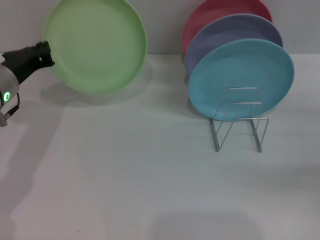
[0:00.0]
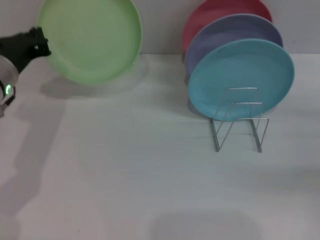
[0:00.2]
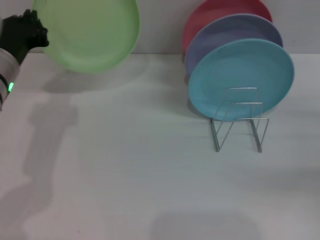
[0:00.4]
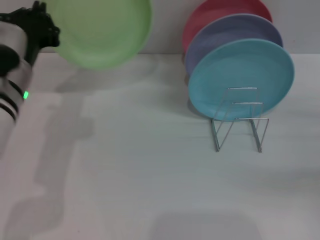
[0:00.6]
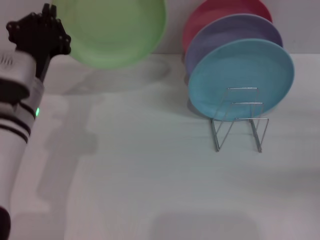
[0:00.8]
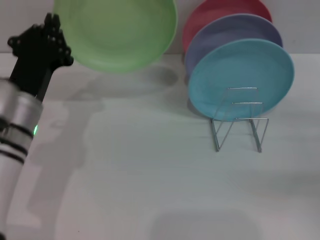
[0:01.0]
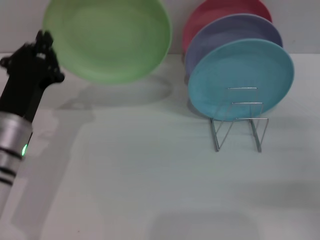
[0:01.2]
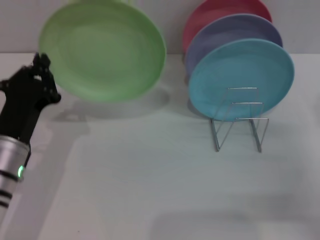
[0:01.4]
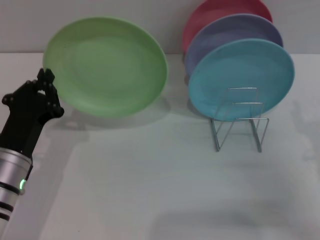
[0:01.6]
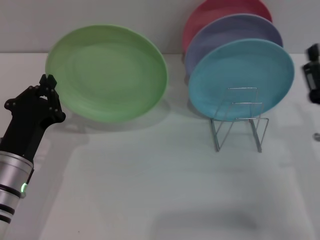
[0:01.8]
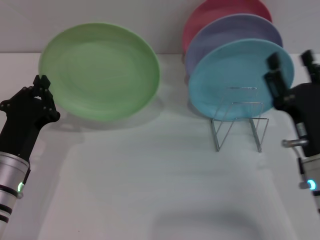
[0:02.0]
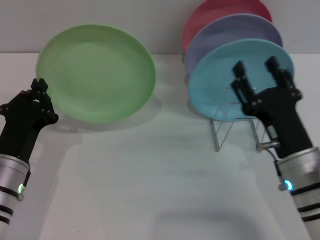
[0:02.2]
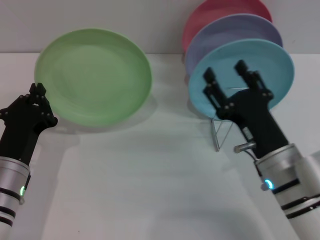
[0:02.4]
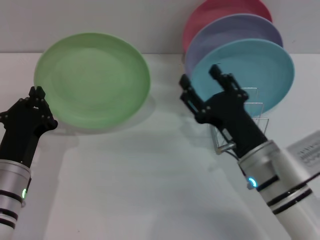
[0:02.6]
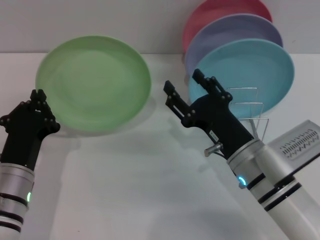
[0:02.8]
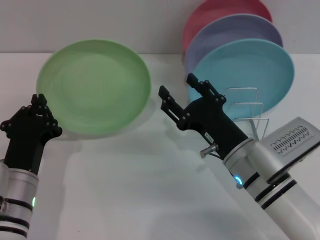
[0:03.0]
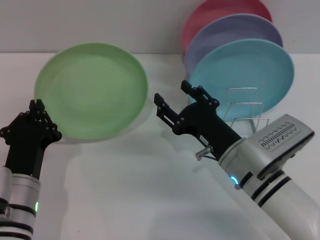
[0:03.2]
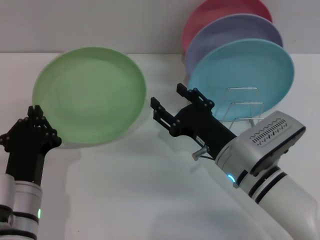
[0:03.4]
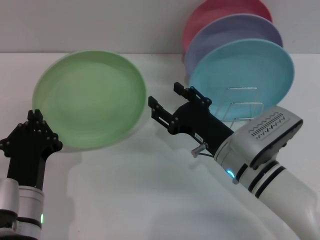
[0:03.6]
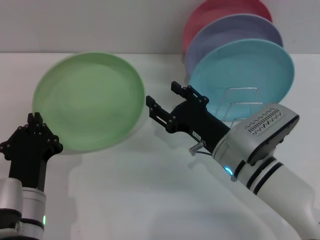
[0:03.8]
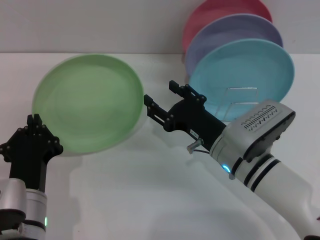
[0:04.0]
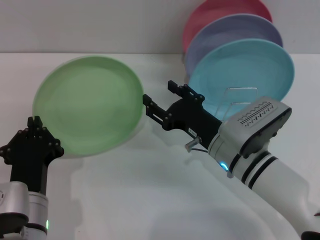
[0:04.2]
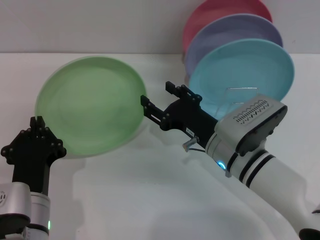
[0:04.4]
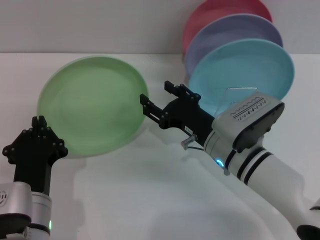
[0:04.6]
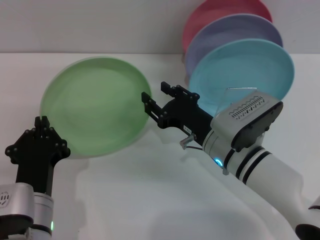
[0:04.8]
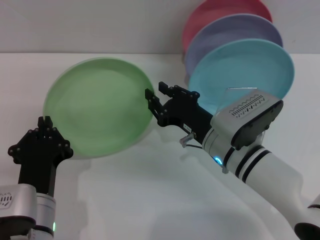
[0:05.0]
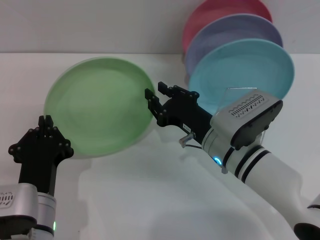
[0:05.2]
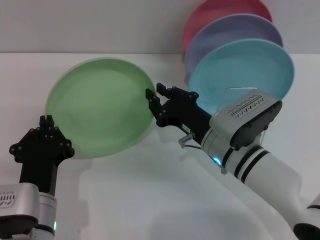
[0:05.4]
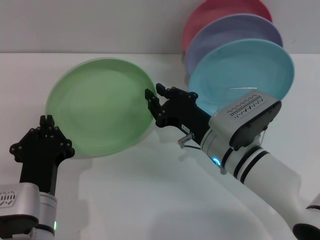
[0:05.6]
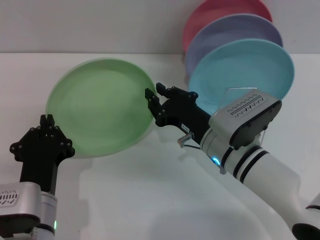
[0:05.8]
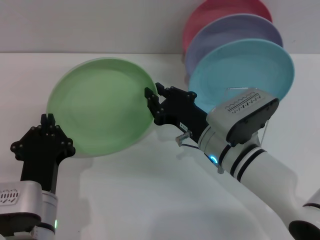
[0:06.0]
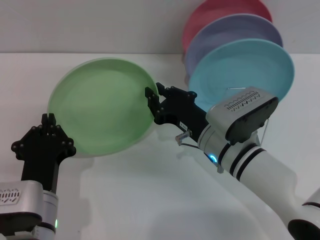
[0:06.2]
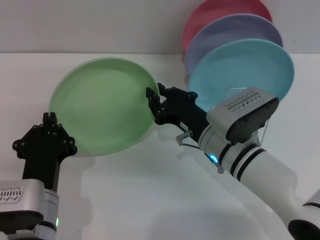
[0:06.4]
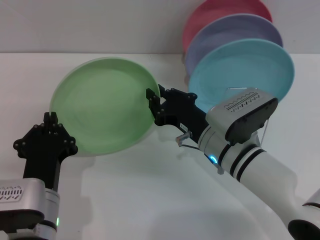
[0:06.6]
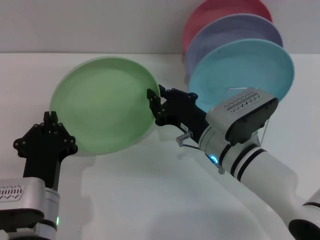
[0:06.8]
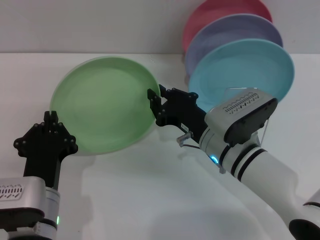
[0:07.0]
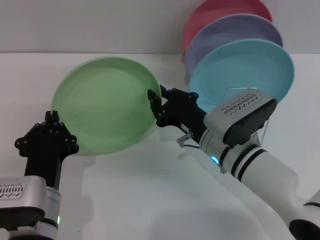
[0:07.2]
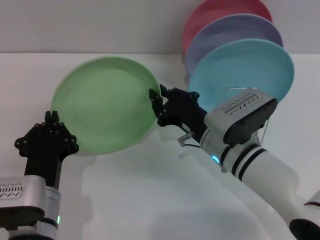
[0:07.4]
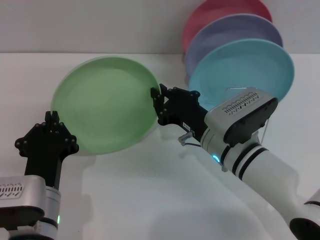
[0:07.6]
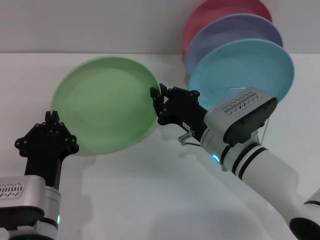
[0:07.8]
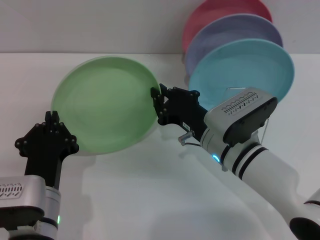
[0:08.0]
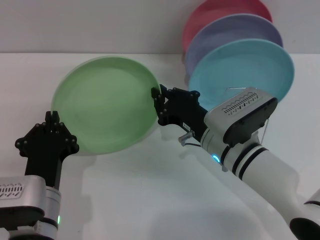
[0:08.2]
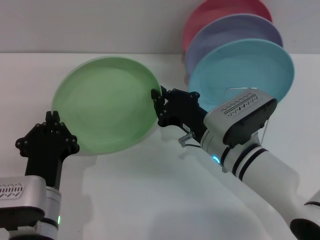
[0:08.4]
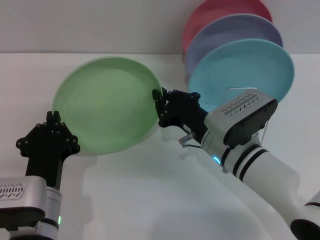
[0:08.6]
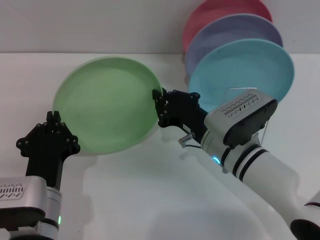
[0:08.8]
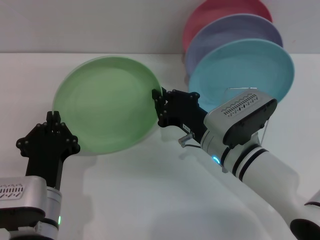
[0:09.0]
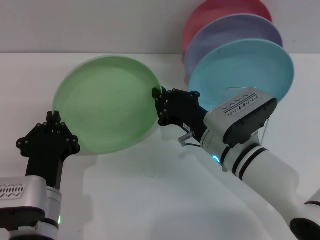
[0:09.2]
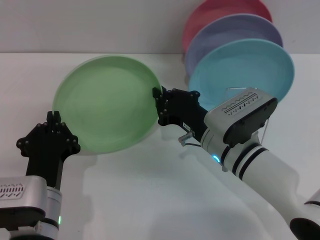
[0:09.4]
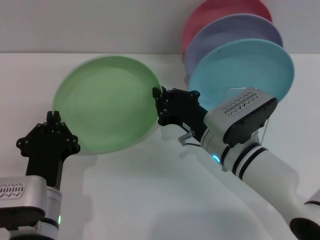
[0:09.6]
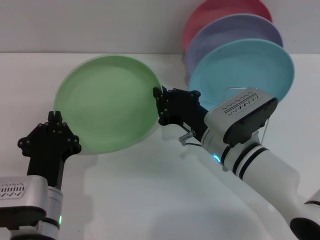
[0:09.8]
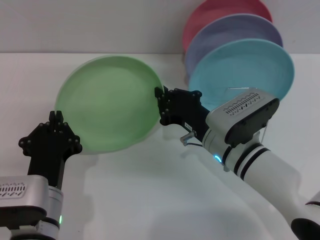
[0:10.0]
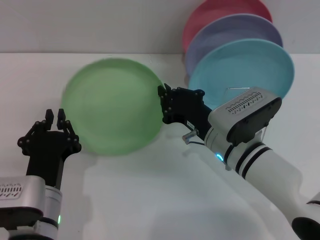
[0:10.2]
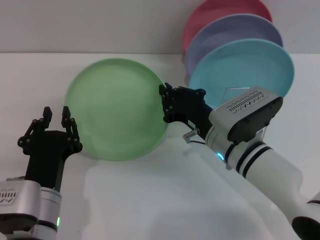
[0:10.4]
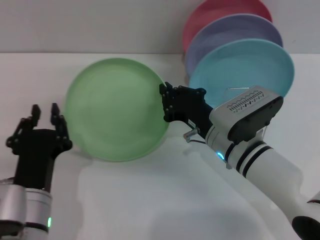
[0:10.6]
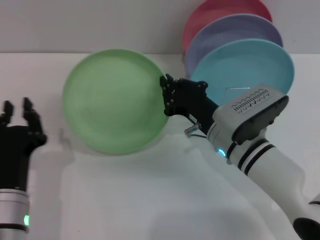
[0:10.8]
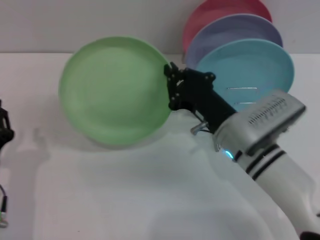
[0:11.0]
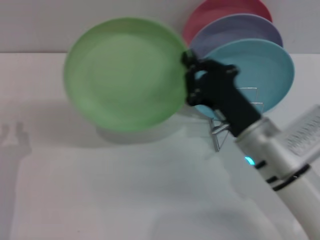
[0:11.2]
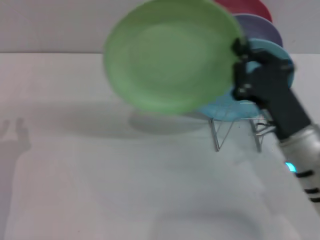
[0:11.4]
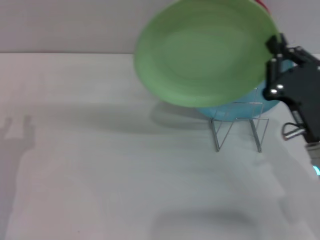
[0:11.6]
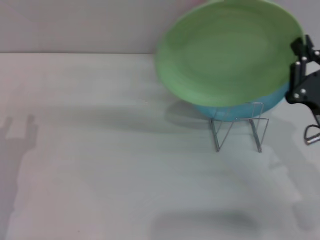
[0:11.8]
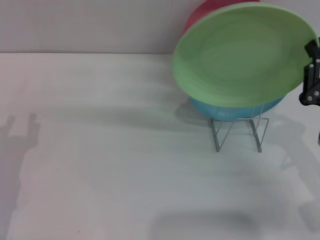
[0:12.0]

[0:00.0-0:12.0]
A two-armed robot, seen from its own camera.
Task of the whole recording: Grip the plate with one hand, pass it to the other, then set it on the shelf.
Step, 0:00.0 to 0:10.6: Pass the plate from the left gripper to the right gripper.
0:00.0 to 0:01.6: The left gripper is displaced backward and downward by roughly 15 cm. Meanwhile the right gripper is displaced to the left by approximately 10 cm.
0:01.6 to 0:03.0: The right gripper is displaced to the left by about 15 cm.
0:04.4 to 0:06.0: The right gripper closes.
0:06.0 to 0:09.0: Neither gripper changes place.
0:09.0 to 0:10.4: Neither gripper changes place.
0:10.4 to 0:12.0: The left gripper moves to the left, some 10 cm, and opens up. The right gripper travels to the right and backward by about 15 cm.

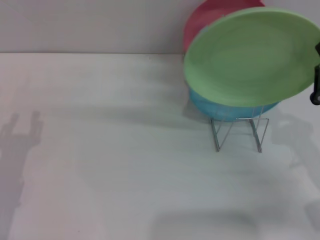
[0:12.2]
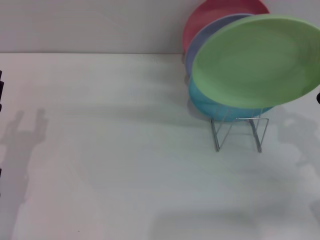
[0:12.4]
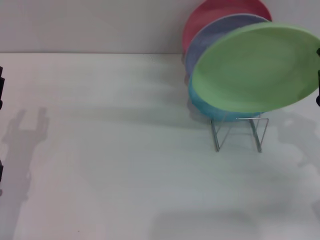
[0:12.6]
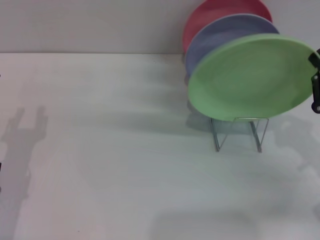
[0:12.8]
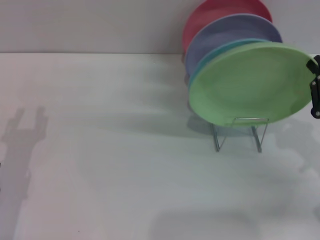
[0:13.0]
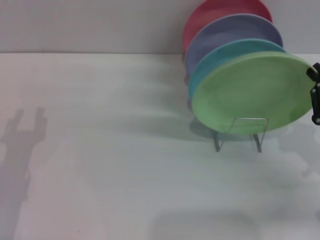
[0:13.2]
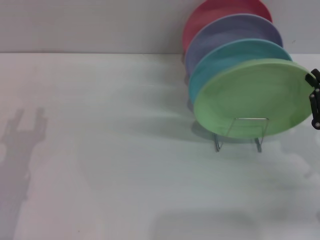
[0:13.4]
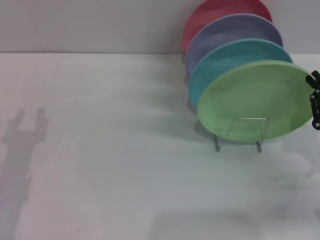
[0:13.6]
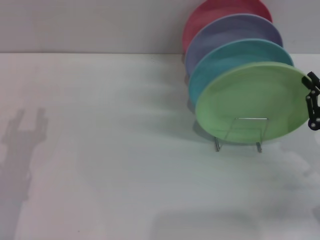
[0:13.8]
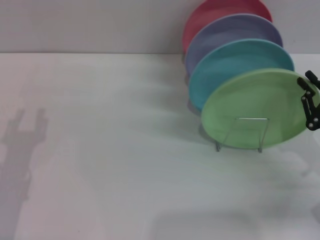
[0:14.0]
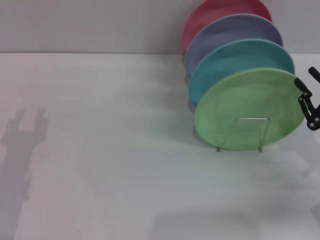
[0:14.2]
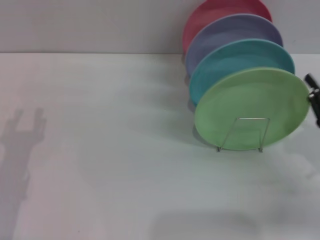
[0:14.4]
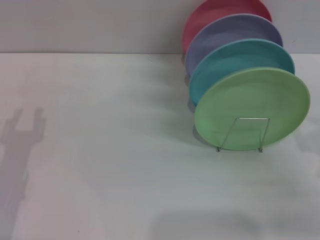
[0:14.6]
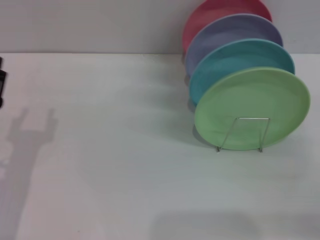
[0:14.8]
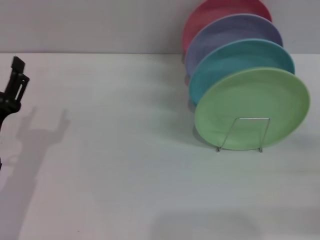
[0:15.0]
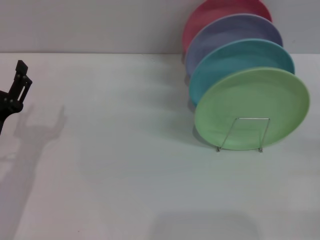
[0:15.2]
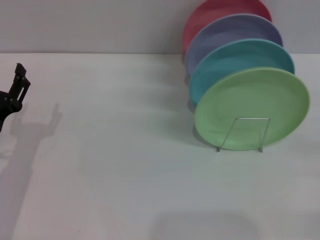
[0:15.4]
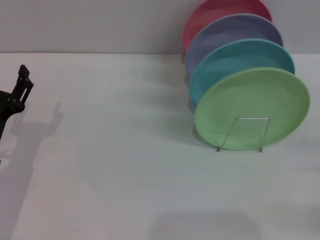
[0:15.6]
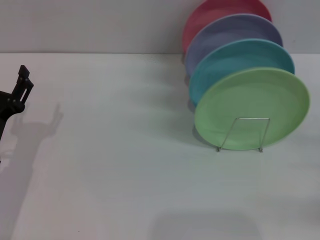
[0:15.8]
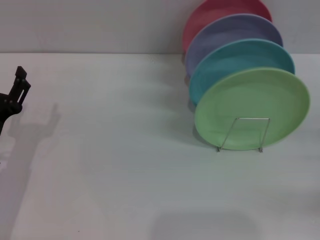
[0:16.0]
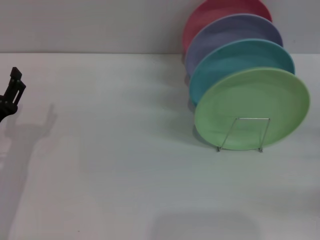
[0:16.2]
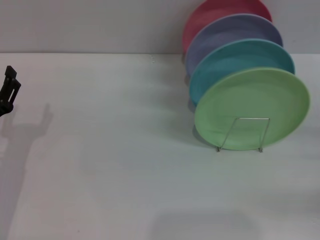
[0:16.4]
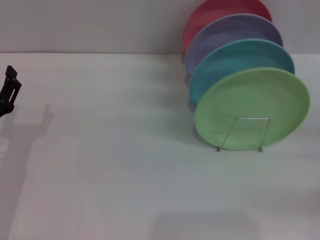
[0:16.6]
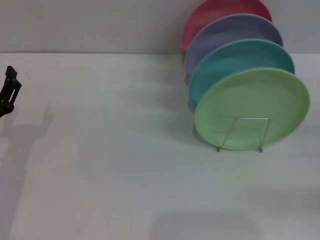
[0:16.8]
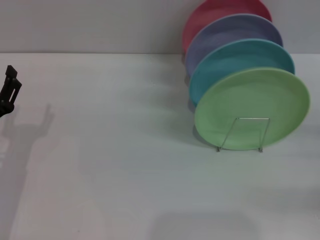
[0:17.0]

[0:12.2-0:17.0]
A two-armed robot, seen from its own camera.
Task of the whole recording: Grip the plate with one hand, pass it to the other, then set it on the shelf.
Step, 0:12.2 to 0:14.4: Place the plate on the shelf with the right gripper.
0:12.2 to 0:13.8: There are only small adjustments of the grippers.
0:13.8 to 0:15.4: The right gripper shifts about 10 cm to the right, and opens up.
0:15.4 to 0:17.0: The grippers make only small movements.
